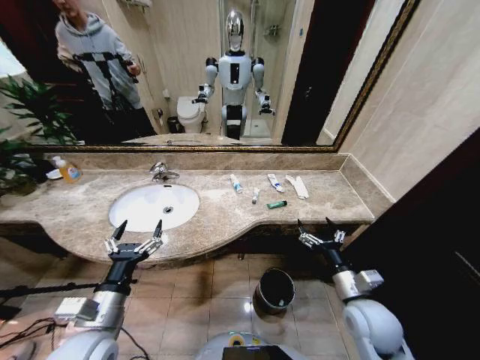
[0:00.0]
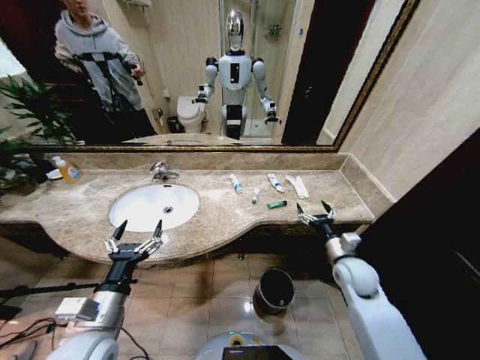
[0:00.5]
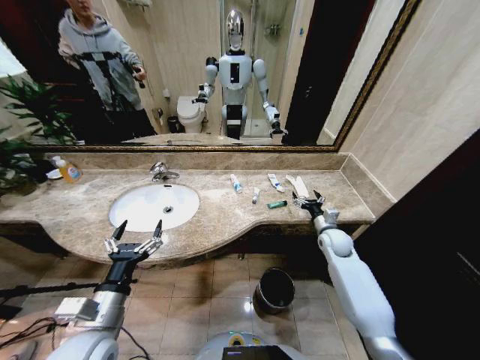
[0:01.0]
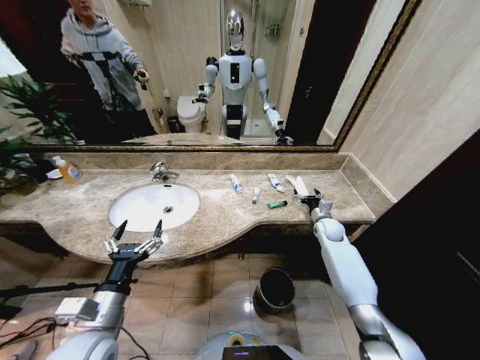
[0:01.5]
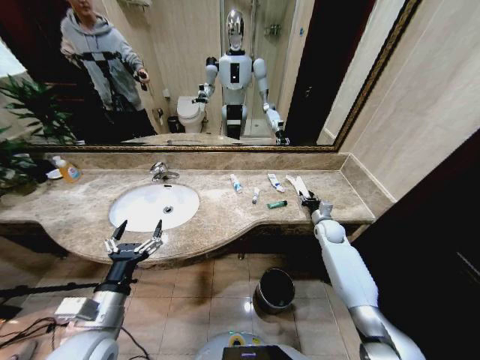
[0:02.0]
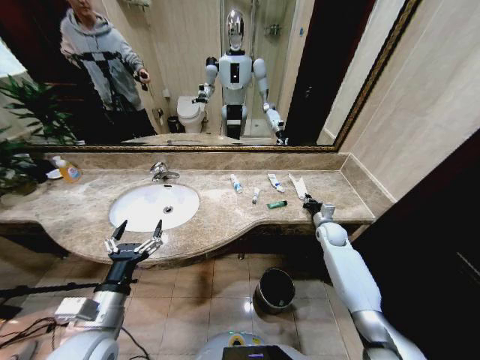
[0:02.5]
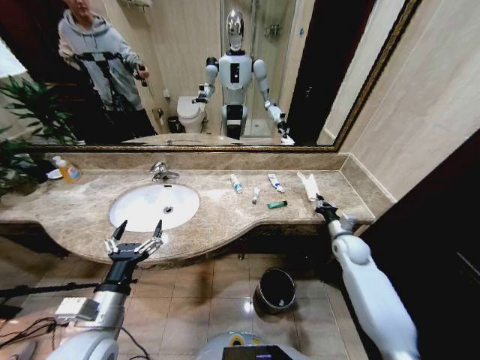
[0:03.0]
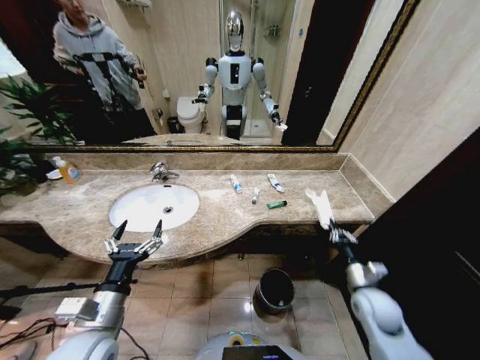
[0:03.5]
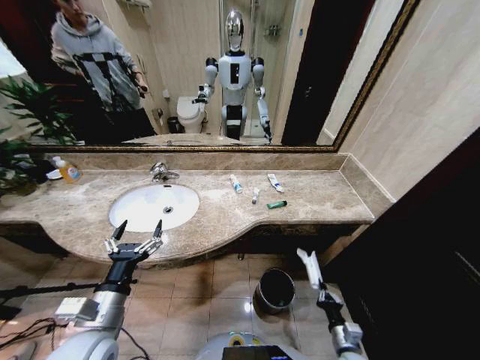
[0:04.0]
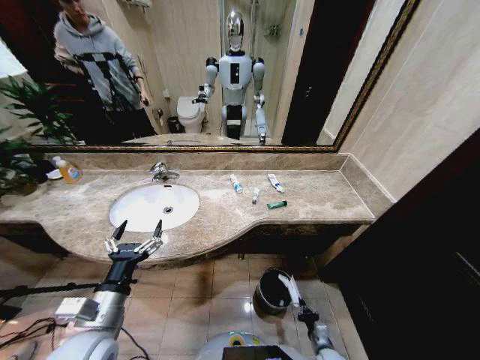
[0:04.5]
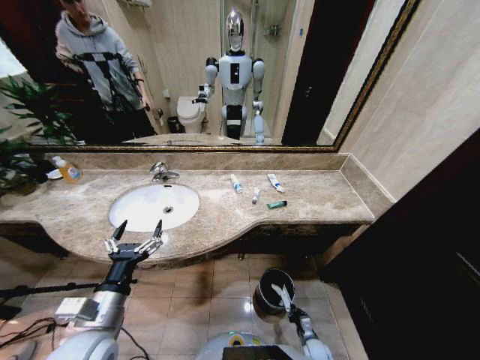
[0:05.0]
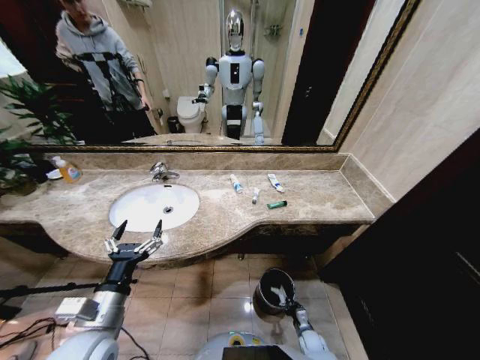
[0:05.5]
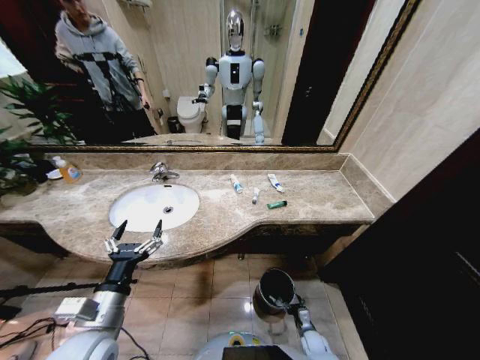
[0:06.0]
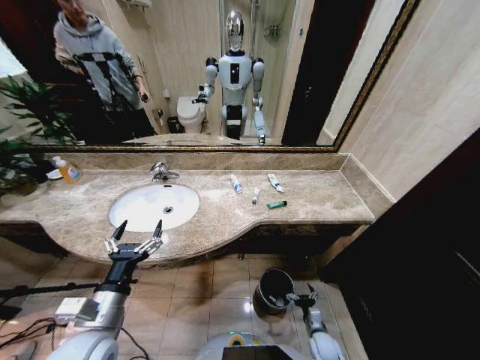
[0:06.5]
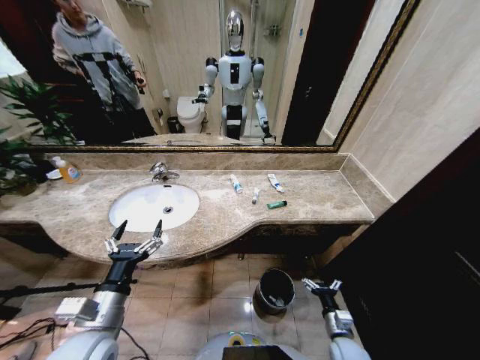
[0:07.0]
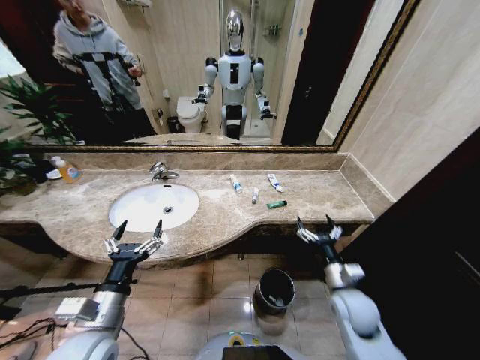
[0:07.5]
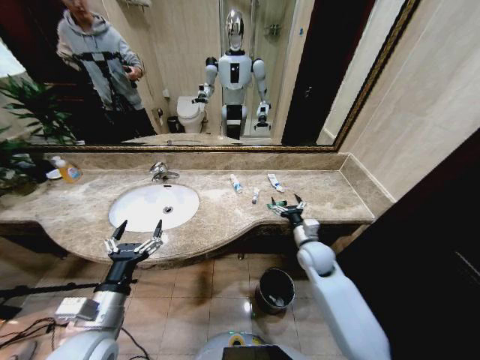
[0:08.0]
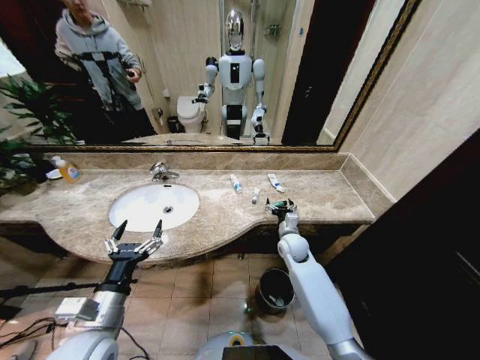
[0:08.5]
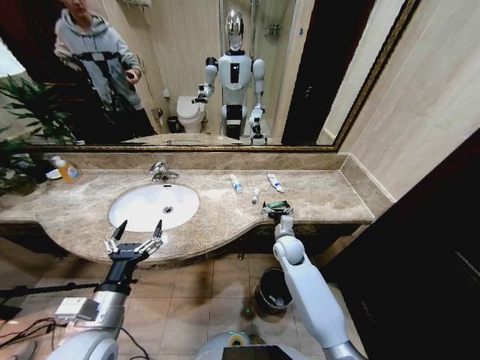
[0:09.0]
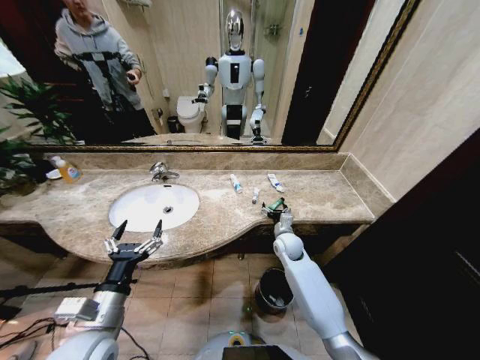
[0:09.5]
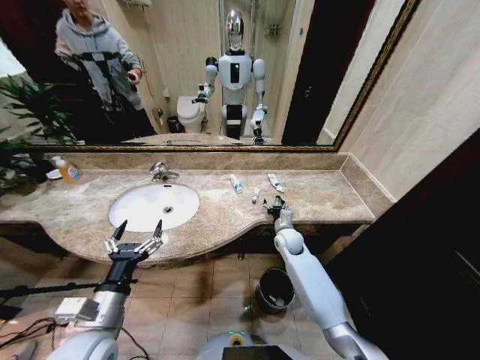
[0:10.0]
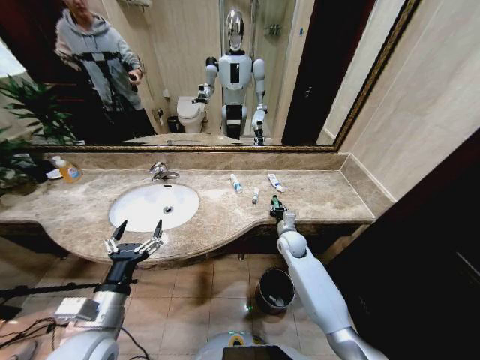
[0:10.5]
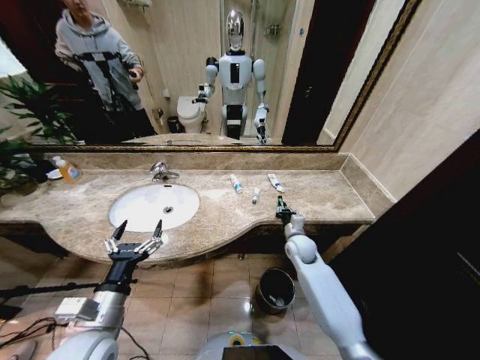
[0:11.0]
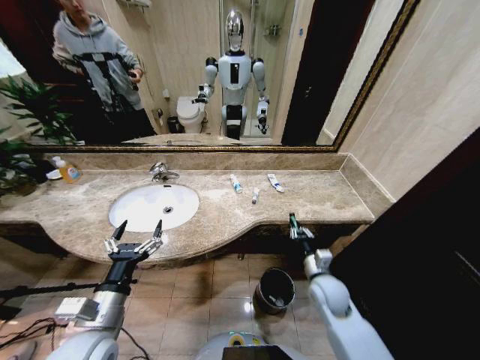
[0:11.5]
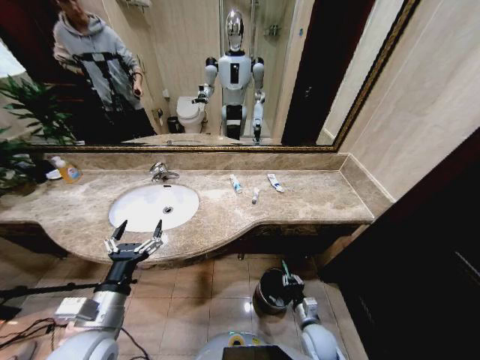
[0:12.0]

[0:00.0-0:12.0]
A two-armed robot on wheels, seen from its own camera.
Task of the whole recording: Pick up the trash from the sink and place it in the trash bin.
0:02.0 to 0:04.0: The right gripper travels backward by approximately 35 cm, and closes its fingers.
0:04.0 to 0:06.0: The right gripper moves downward and forward, about 20 cm, and opens.
0:06.0 to 0:08.0: The right gripper travels upward and forward by approximately 40 cm.
0:08.0 to 0:10.0: The right gripper shifts about 10 cm forward.
0:10.0 to 0:12.0: The right gripper goes about 30 cm backward and downward, and closes.

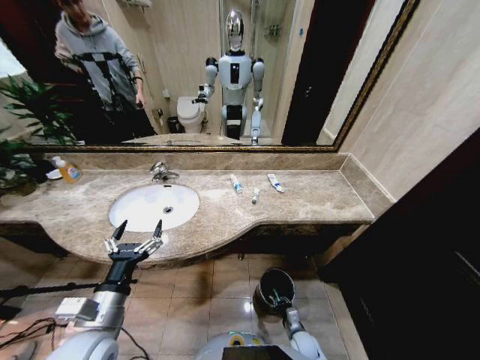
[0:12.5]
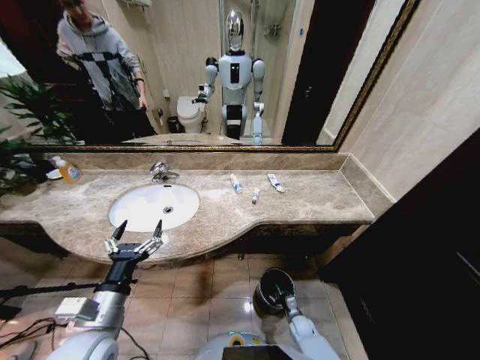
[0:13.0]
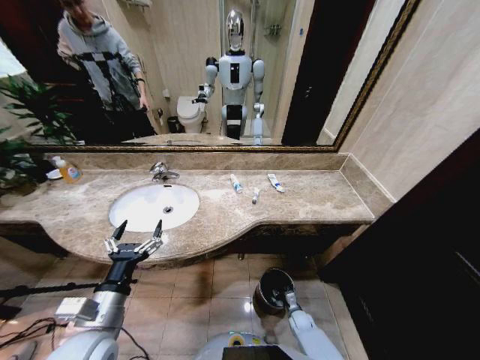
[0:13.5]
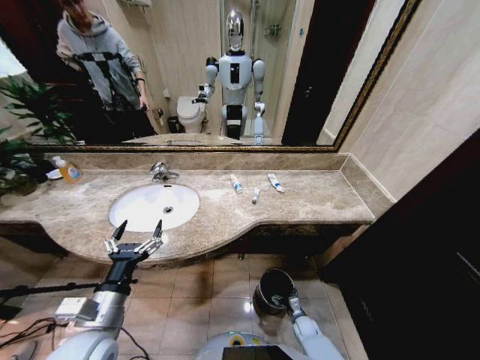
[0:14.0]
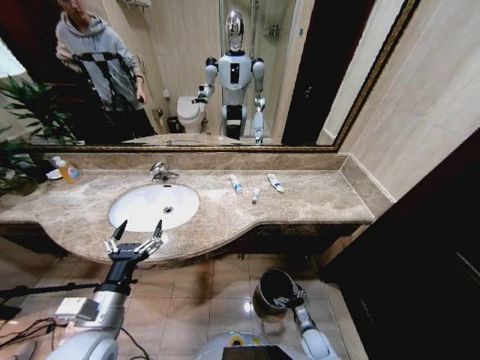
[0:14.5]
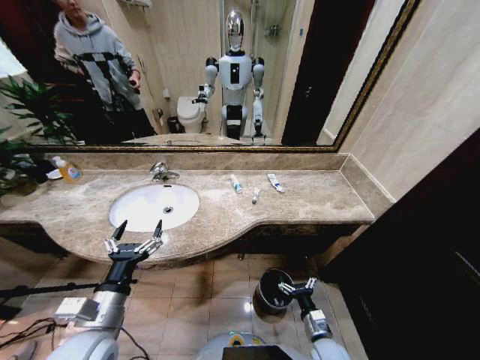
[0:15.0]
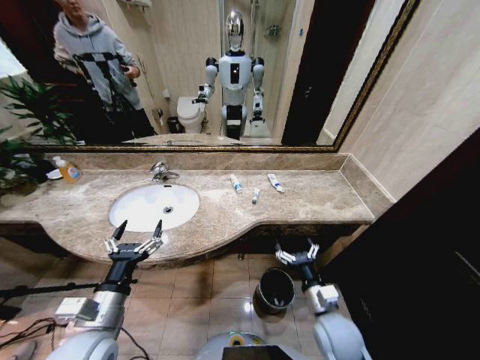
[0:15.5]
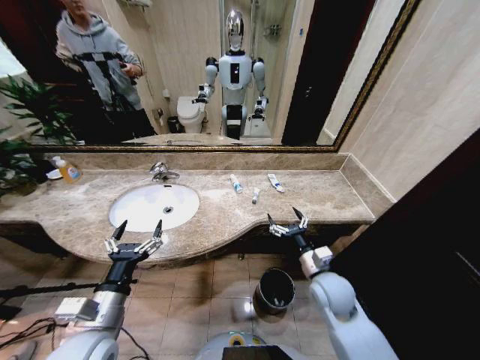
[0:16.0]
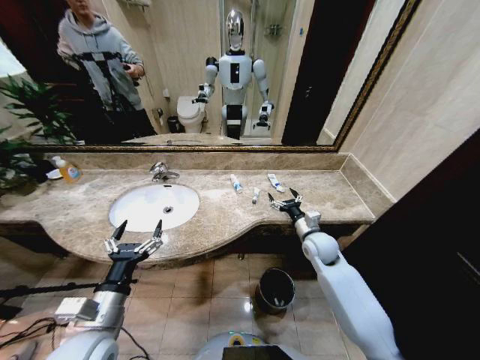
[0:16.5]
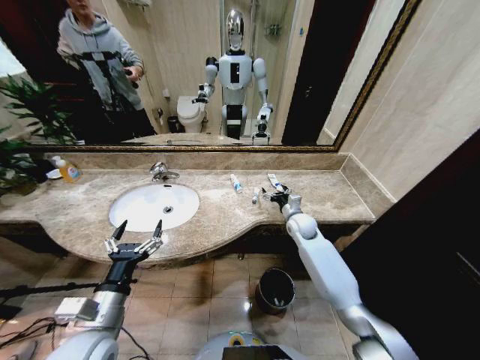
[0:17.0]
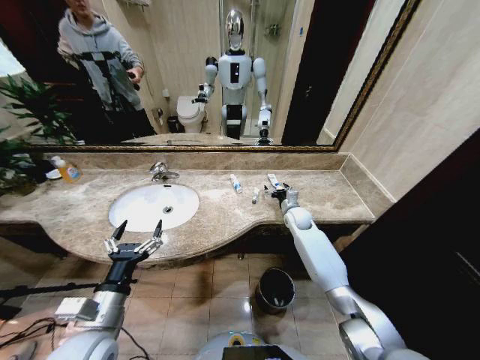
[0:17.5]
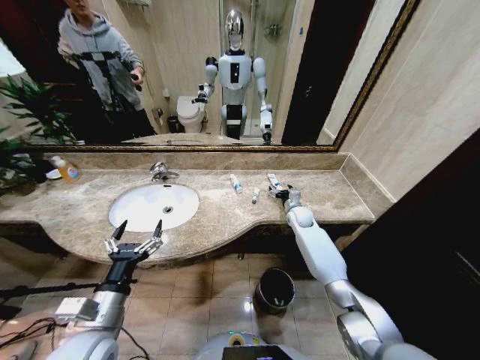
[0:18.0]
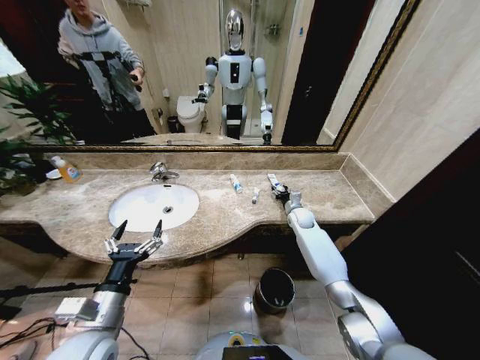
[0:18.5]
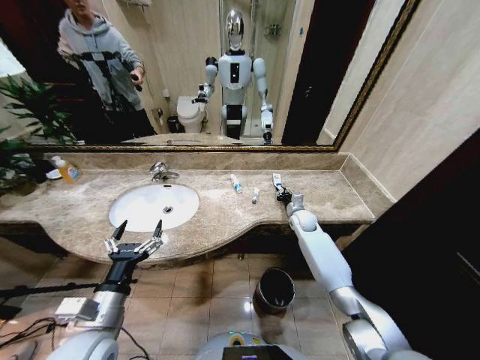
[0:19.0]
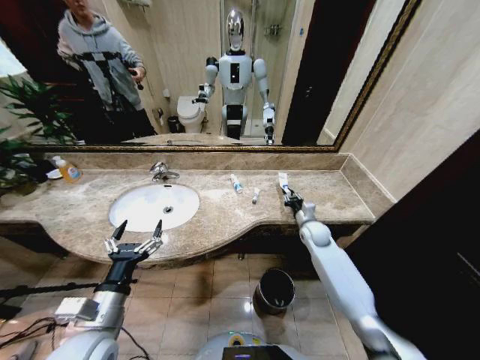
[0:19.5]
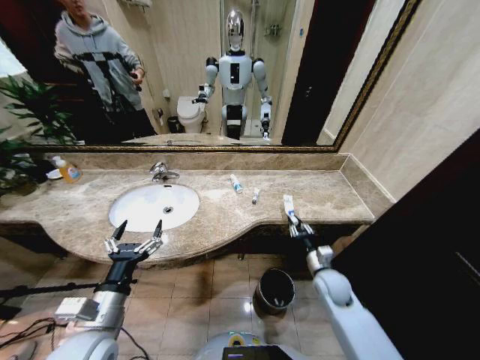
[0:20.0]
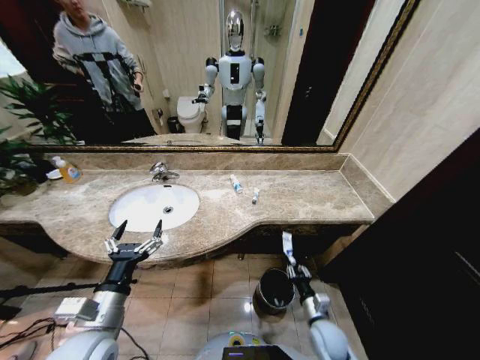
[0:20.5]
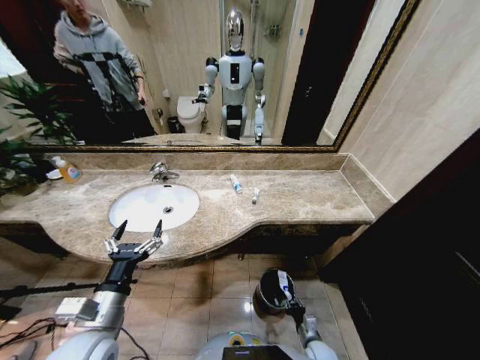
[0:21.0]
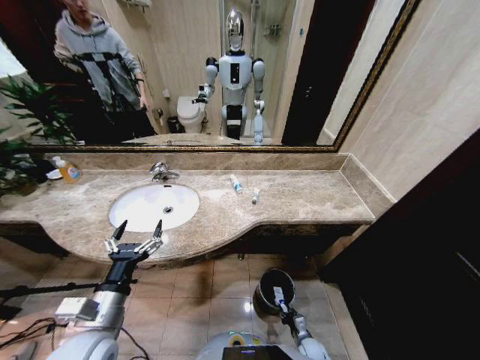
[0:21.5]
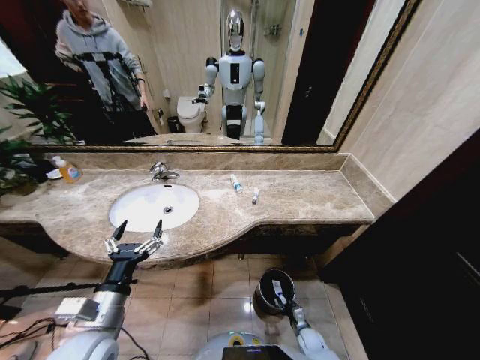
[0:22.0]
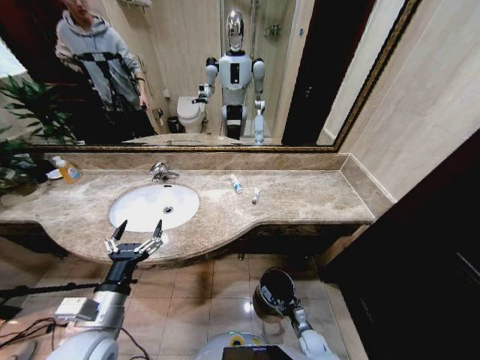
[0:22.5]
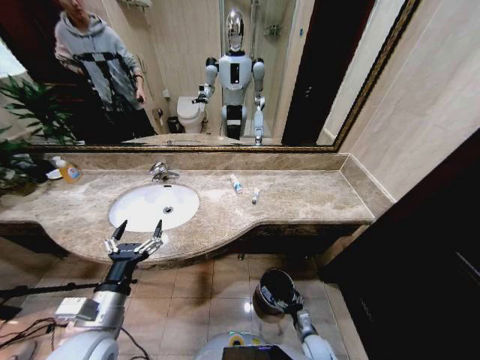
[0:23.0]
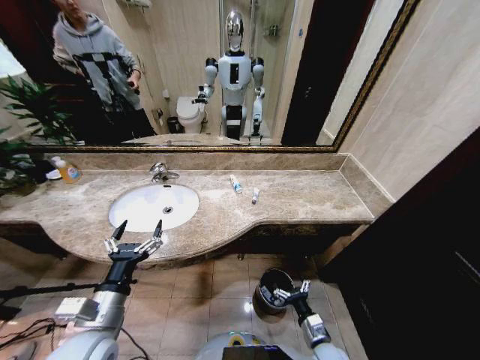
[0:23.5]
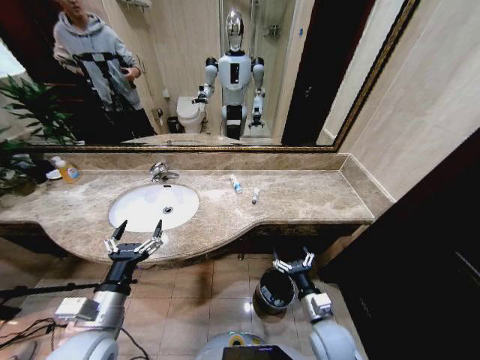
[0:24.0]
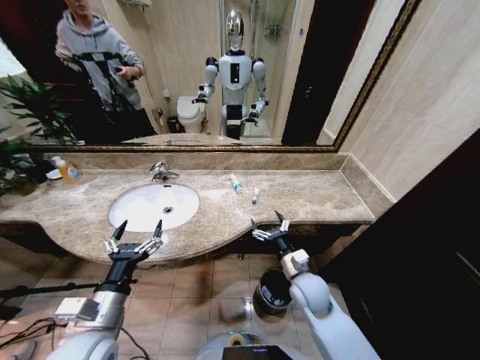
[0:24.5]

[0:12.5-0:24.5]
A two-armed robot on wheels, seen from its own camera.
Task of the whole recording: Pick up the trash from the sink and place it in the trash bin.
0:12.5 to 0:14.5: The right gripper opens up.
0:14.5 to 0:16.5: The right gripper travels upward and forward by some 40 cm.
0:16.5 to 0:18.5: The right gripper travels forward by roughly 15 cm.
0:18.5 to 0:20.5: The right gripper is displaced backward by roughly 35 cm, and closes its fingers.
0:20.5 to 0:22.5: The right gripper shifts roughly 20 cm downward, and opens.
0:22.5 to 0:24.5: The right gripper heads upward, covering about 35 cm.

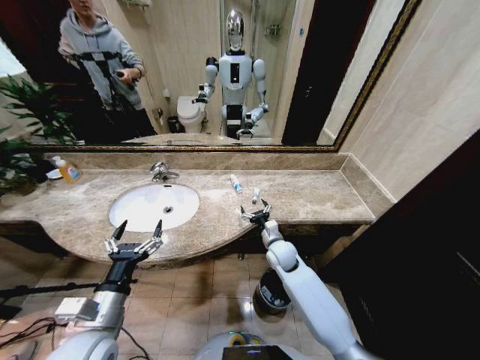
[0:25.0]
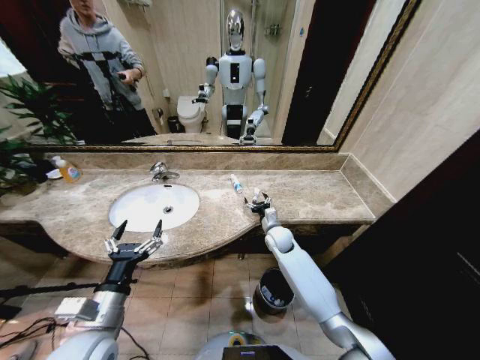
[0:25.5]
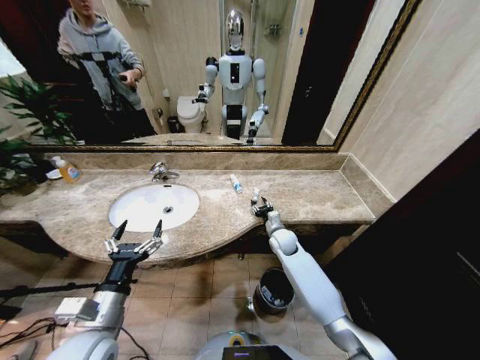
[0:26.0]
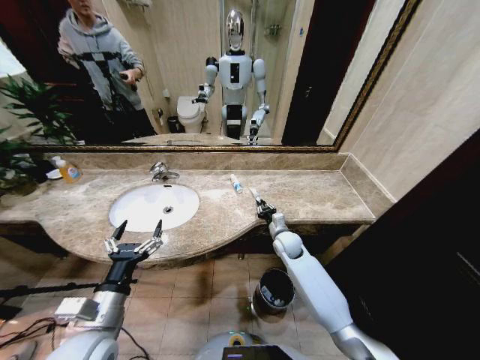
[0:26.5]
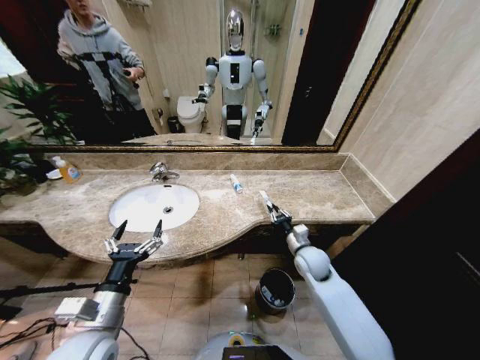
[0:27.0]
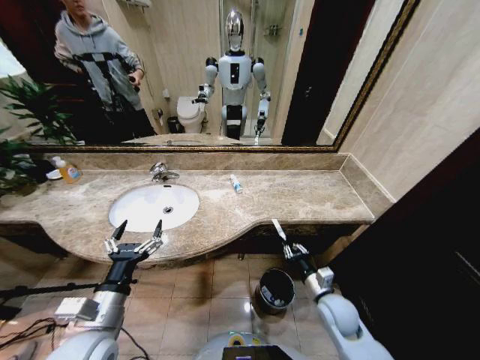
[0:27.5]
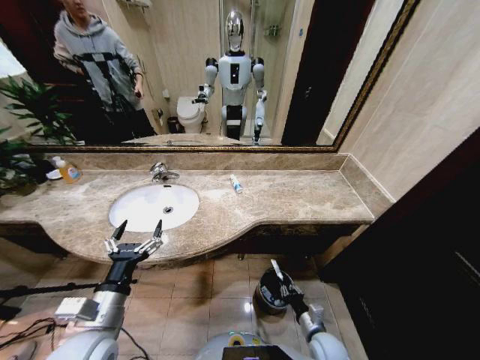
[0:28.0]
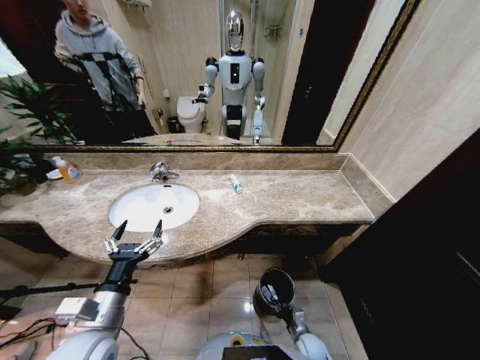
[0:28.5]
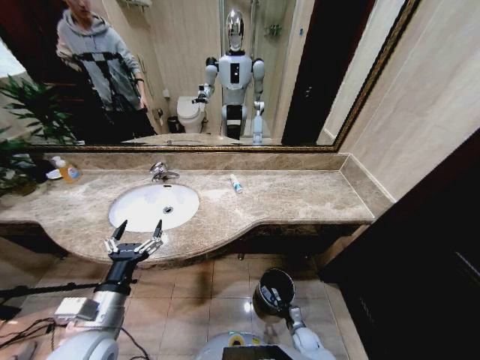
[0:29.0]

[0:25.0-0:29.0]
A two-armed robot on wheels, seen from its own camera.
Task of the whole recording: Pick up the trash from the sink and place it in the trash bin.
0:25.0 to 0:27.0: The right gripper goes roughly 10 cm to the right, moves about 5 cm forward and comes back, and closes.
0:27.0 to 0:29.0: The right gripper is displaced downward and backward by about 35 cm.
